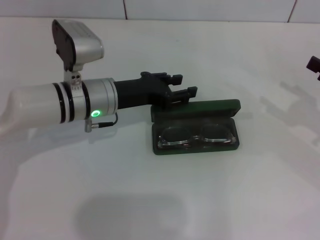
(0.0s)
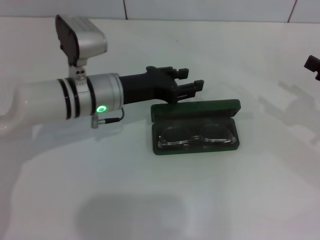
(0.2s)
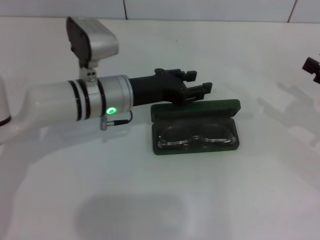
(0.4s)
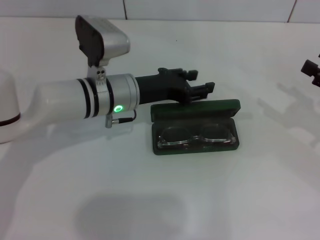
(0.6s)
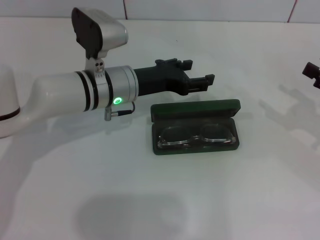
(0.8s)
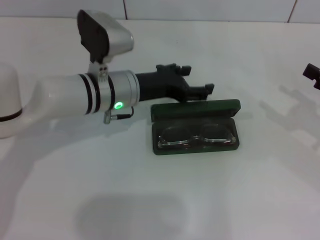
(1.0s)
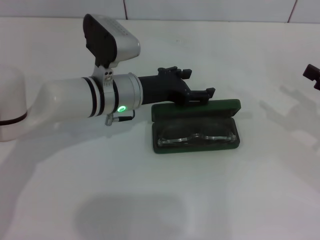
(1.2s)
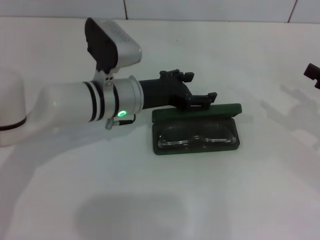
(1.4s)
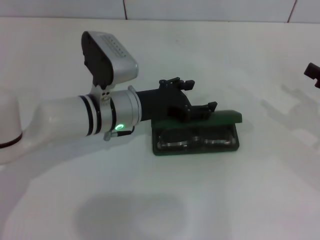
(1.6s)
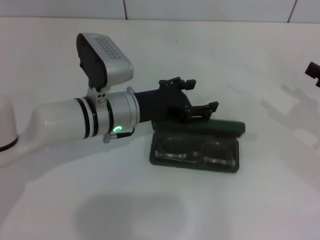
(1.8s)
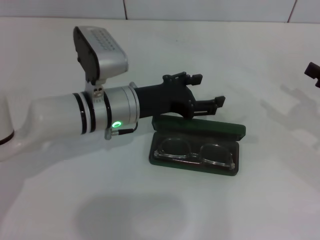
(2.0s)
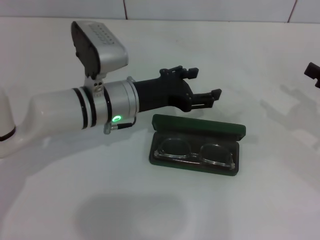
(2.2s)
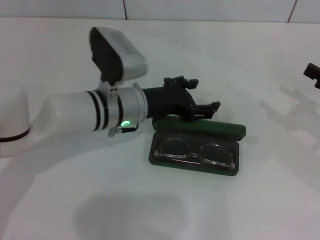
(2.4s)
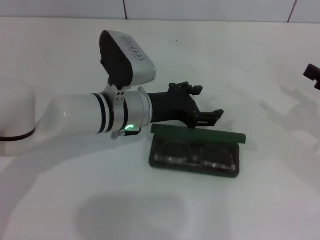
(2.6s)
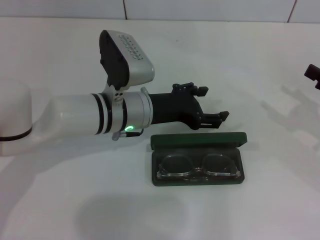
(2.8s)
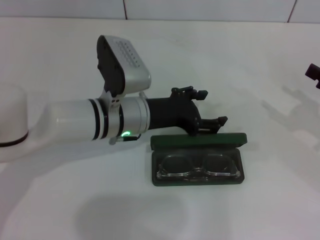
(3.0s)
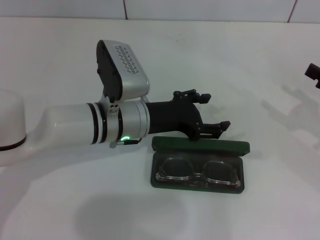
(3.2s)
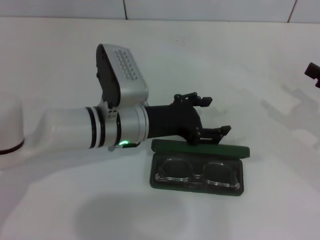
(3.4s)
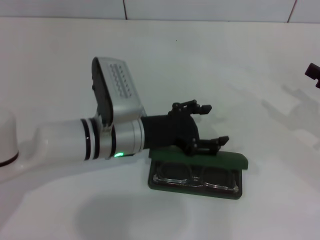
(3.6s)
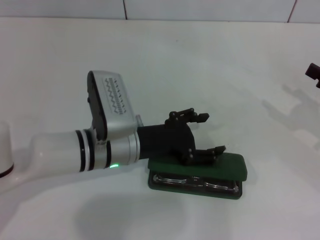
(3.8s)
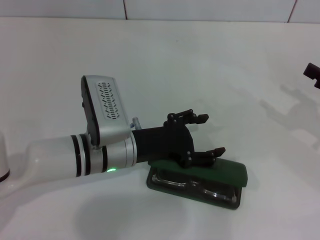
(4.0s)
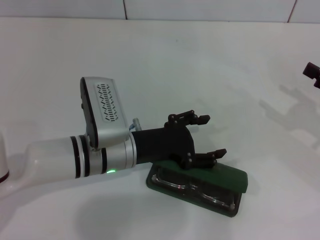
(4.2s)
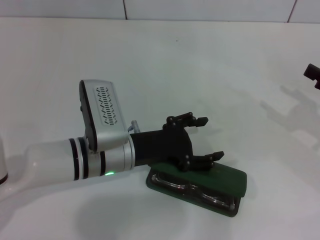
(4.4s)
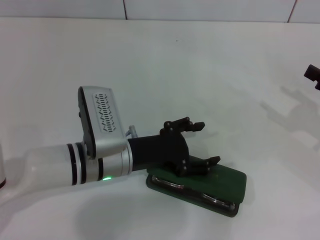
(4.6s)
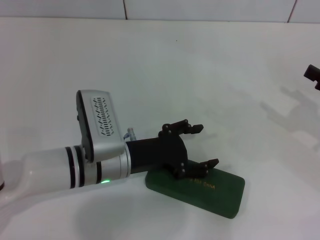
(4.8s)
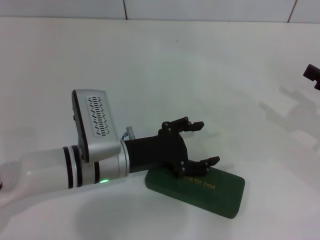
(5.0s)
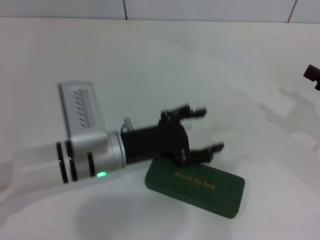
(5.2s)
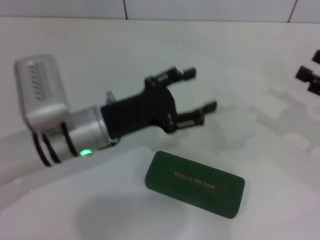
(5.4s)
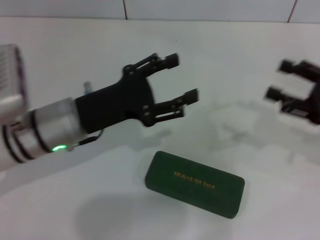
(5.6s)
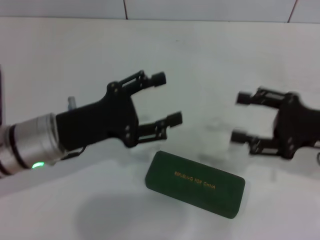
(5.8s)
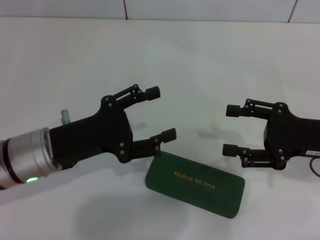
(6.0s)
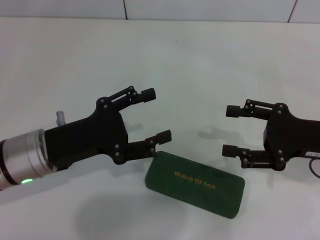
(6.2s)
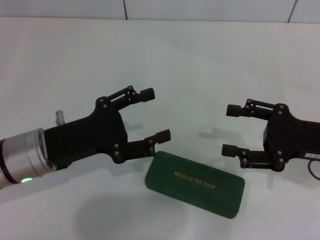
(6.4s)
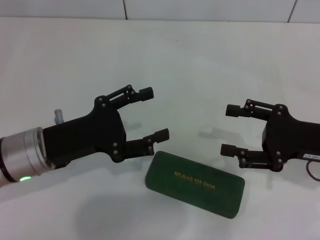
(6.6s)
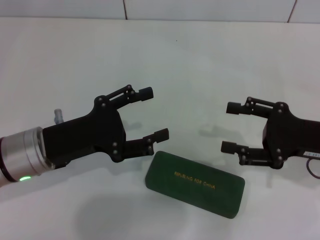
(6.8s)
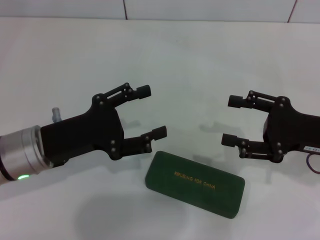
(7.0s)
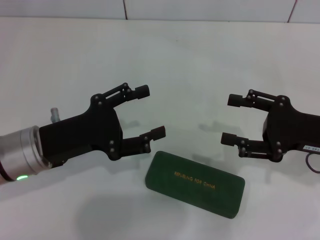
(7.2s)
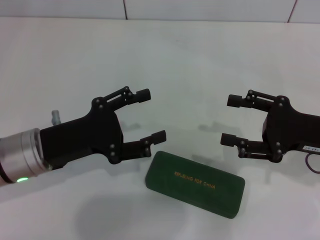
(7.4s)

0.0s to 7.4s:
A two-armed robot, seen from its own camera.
Step, 0.0s to 4.8s: Close the glasses case with your left hand.
0.0s to 1.4s: The left gripper opens.
1.4s to 3.0s: The grippers move only a little.
3.0s to 4.4s: The left gripper moves approximately 5 cm.
4.4s to 6.0s: Both grippers travel together to the left, some 10 cm.
6.0s to 7.4s: There are only small adjustments of the grippers.

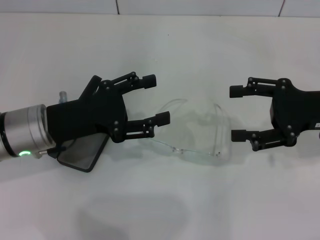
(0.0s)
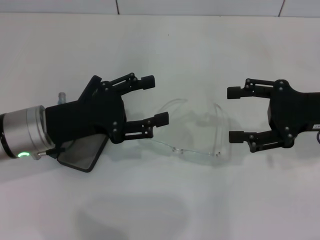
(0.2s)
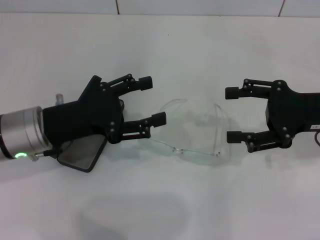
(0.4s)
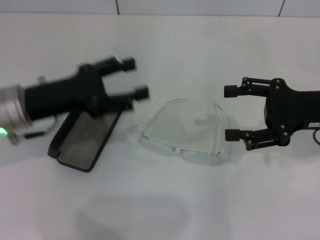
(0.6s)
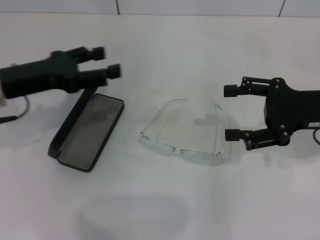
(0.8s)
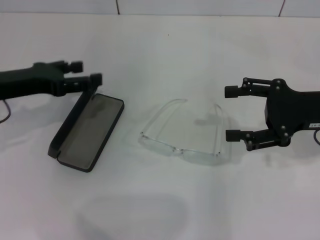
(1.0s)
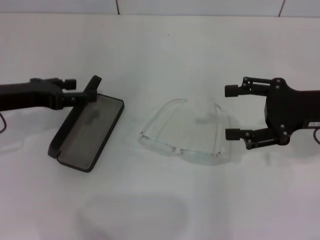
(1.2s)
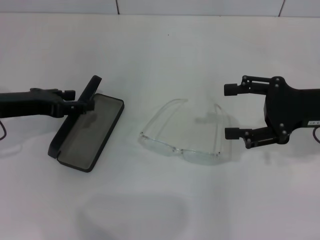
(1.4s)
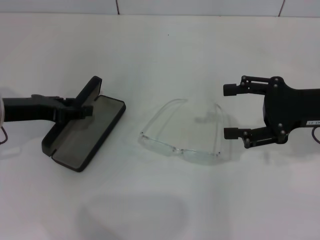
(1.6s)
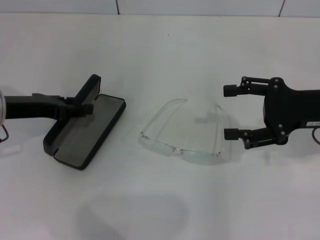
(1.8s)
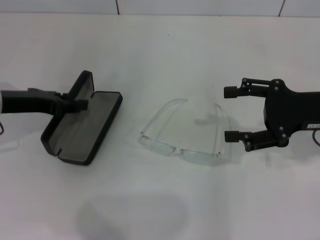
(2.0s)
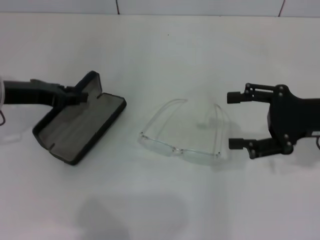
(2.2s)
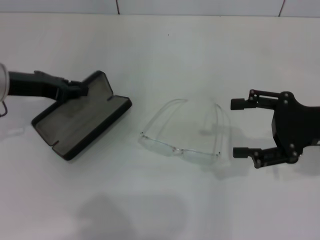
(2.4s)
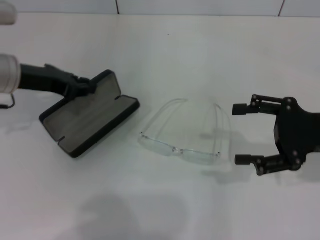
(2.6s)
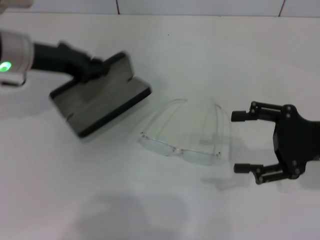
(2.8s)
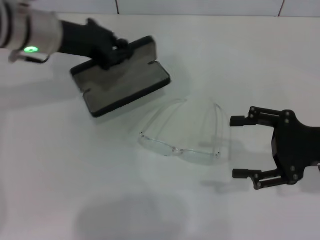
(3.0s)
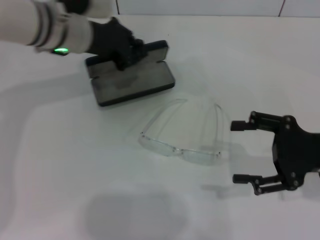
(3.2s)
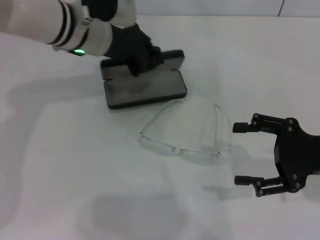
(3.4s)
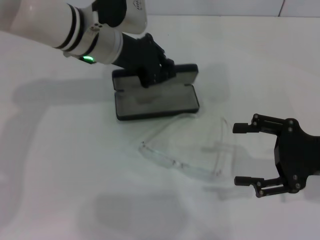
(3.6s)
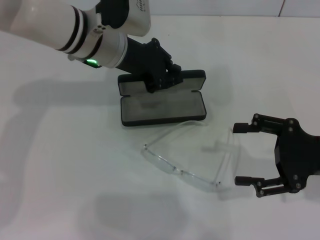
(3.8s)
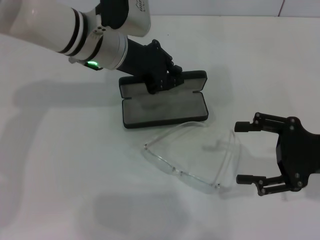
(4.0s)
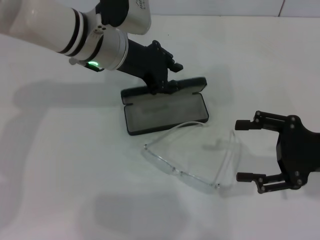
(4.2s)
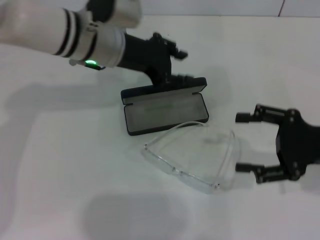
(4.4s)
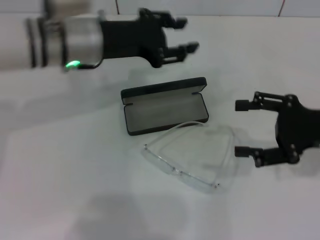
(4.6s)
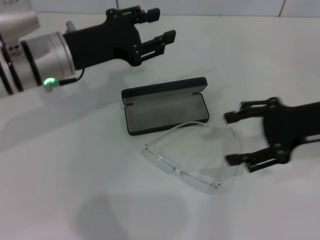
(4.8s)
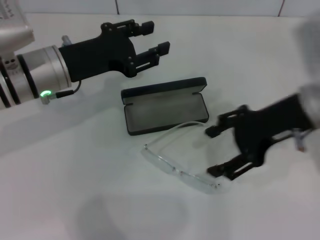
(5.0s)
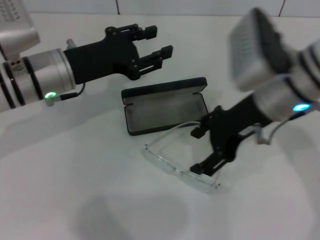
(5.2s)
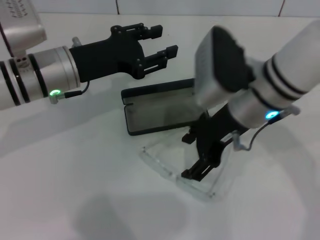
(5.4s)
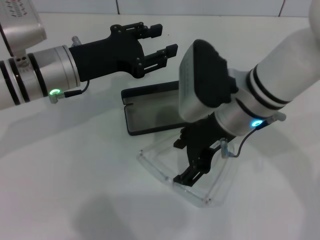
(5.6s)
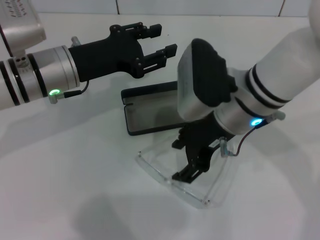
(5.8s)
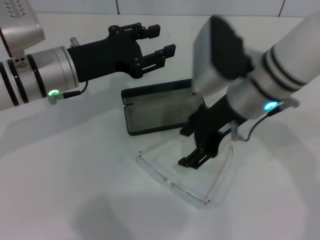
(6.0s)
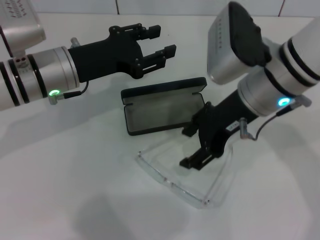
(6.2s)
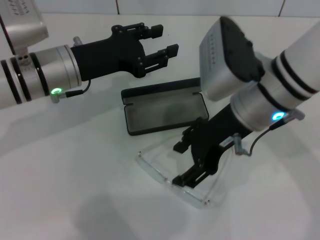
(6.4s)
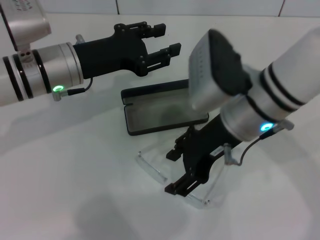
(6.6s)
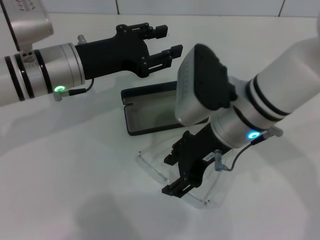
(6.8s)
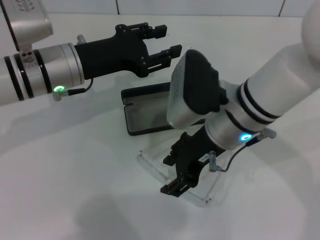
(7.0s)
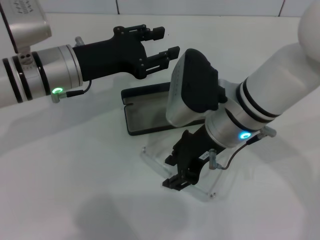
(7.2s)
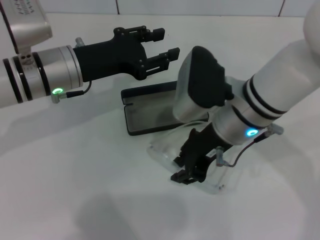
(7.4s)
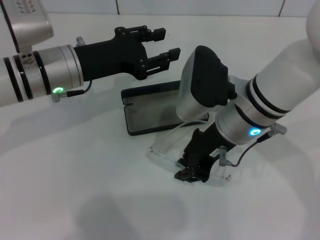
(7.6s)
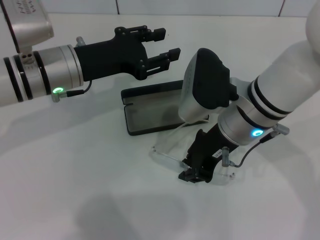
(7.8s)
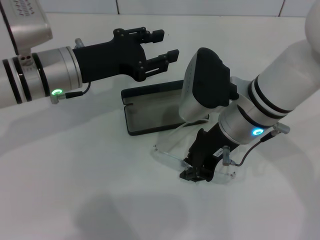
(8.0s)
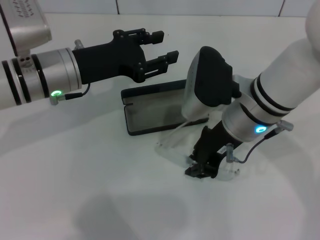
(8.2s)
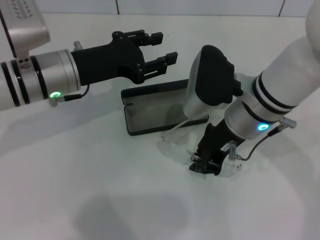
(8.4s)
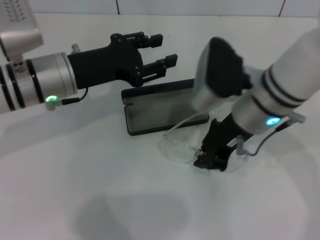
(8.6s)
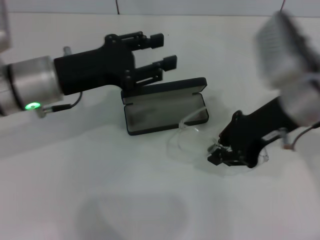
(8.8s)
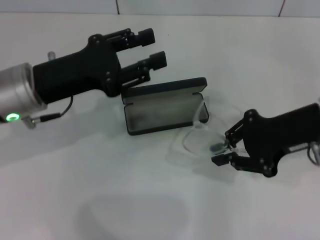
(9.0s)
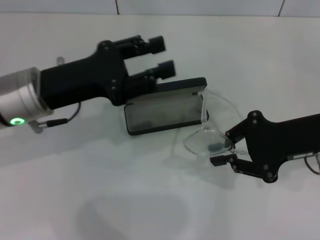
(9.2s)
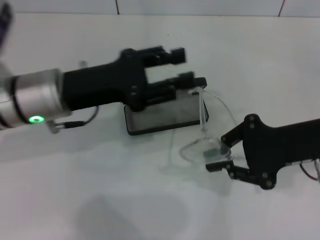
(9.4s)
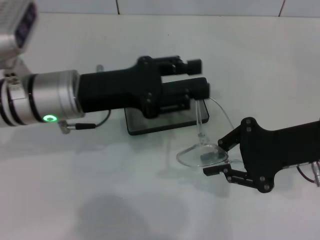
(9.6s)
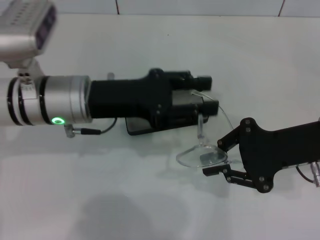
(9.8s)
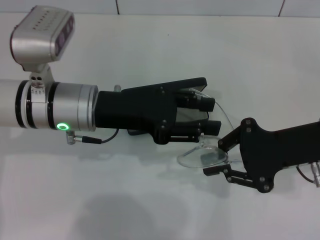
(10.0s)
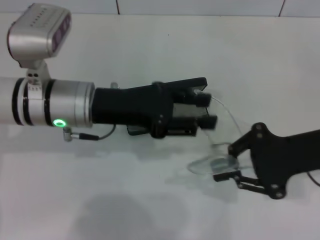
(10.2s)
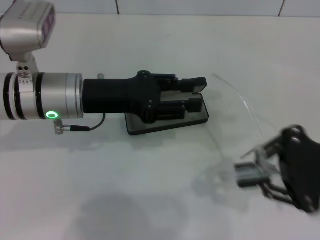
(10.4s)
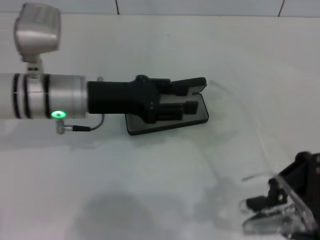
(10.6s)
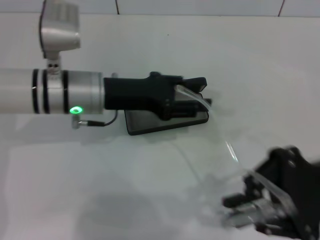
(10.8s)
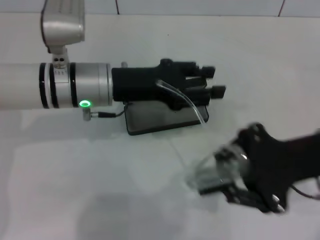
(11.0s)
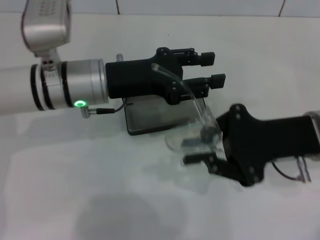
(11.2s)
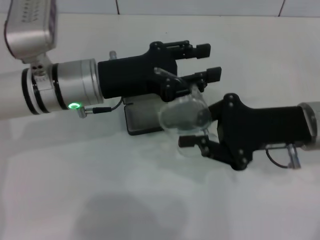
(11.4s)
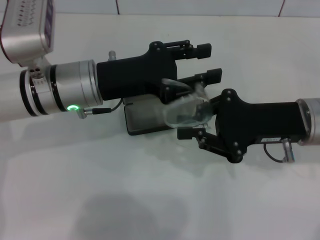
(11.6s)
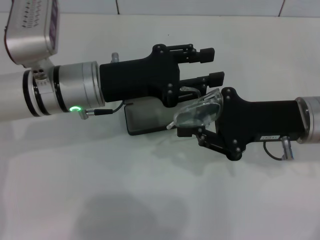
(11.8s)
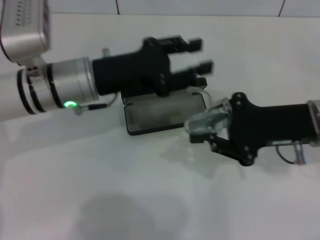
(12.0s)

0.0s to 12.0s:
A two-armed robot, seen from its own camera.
Step, 0.0s to 2.2s: Grab the glasses case with your left hand.
Step, 2.6s to 4.2s: Place the glasses case in the center of the table with your left hand.
Step, 4.4s to 8.2s: Grab the eyeglass frame with your right hand.
Step, 8.4s to 11.8s: Lift the glasses with your right hand.
0.0s to 1.6s: The left gripper goes roughly 10 cm to the left.
1.6s to 3.0s: The right gripper changes place by approximately 5 cm; the left gripper goes roughly 15 cm to the right, forward and upward, and closes.
3.0s to 4.4s: The left gripper shifts roughly 10 cm to the right.
4.4s to 6.0s: The left gripper is displaced to the left by approximately 5 cm, while the right gripper heads to the left, covering some 20 cm.
6.0s to 7.6s: The right gripper closes.
7.6s to 9.0s: The left gripper travels backward by about 5 cm. The right gripper travels to the right by roughly 15 cm.
9.0s to 10.4s: The right gripper changes place by roughly 5 cm.
10.4s to 12.0s: The right gripper ends up about 5 cm from where it was.

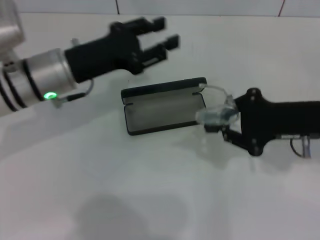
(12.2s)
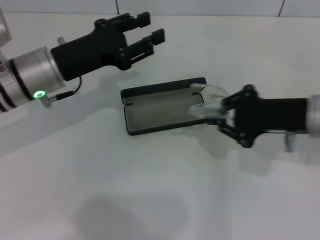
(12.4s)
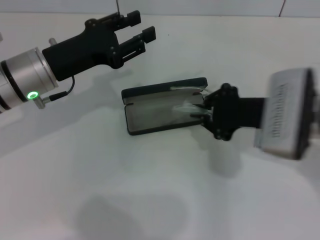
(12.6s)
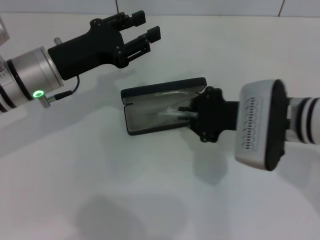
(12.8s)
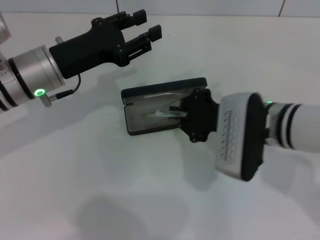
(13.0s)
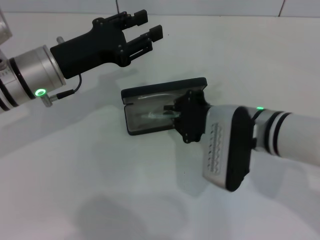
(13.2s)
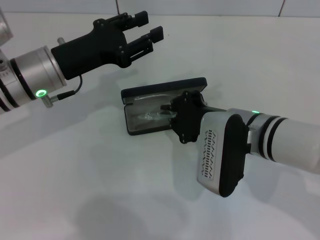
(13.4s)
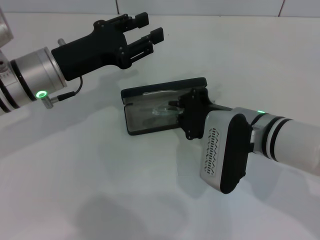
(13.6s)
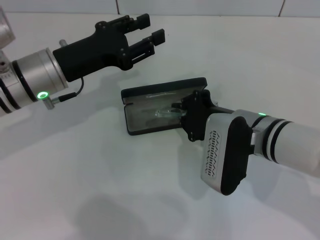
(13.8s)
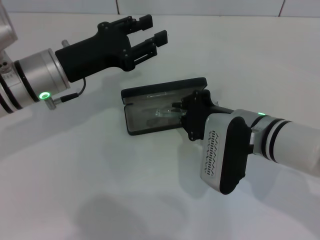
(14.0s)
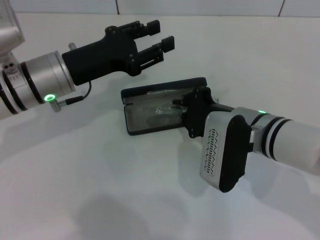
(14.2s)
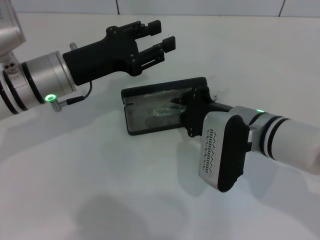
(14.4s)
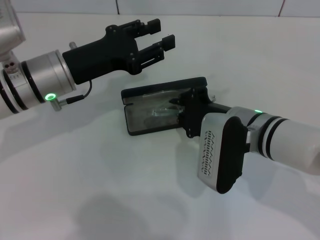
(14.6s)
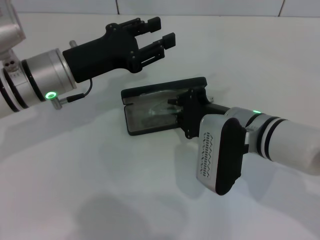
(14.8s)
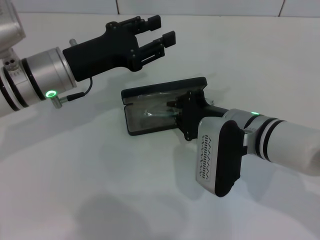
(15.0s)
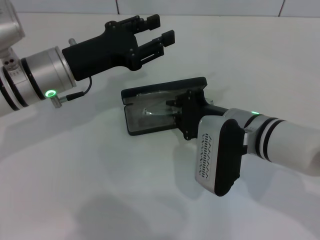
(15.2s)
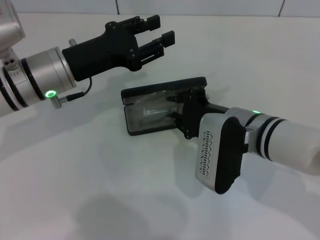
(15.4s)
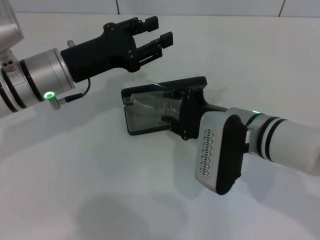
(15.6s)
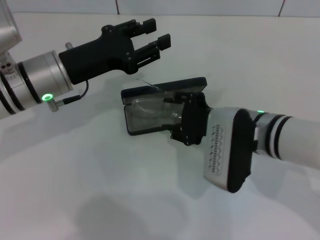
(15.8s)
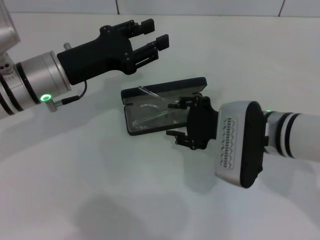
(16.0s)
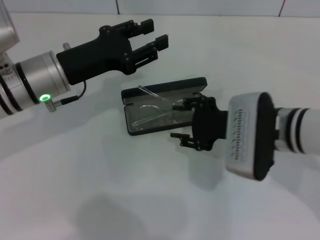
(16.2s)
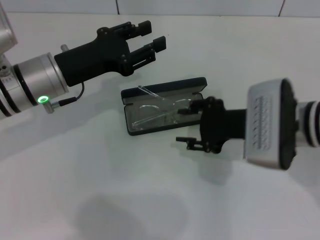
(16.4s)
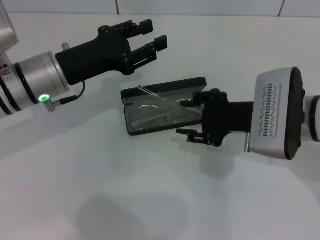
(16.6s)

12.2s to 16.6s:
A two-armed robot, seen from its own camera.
12.2s to 13.6s: The right gripper is displaced to the left by approximately 10 cm.
13.6s to 15.2s: Both grippers stay about where they are.
15.2s to 16.6s: The right gripper moves approximately 5 cm, and opens.
